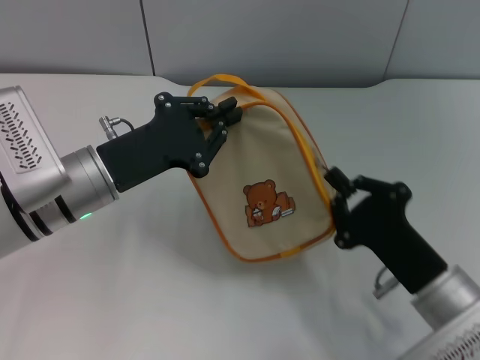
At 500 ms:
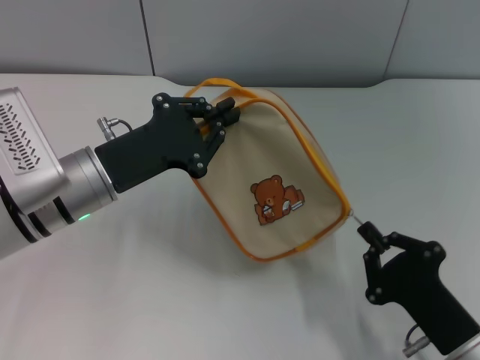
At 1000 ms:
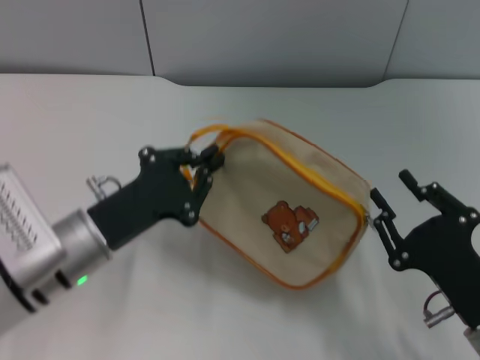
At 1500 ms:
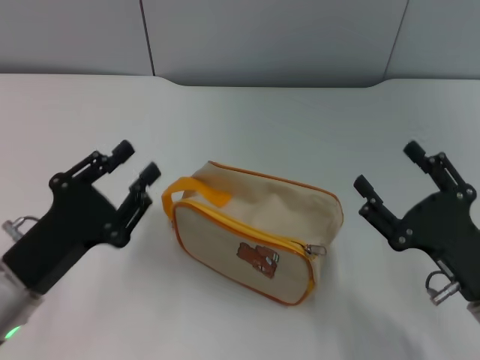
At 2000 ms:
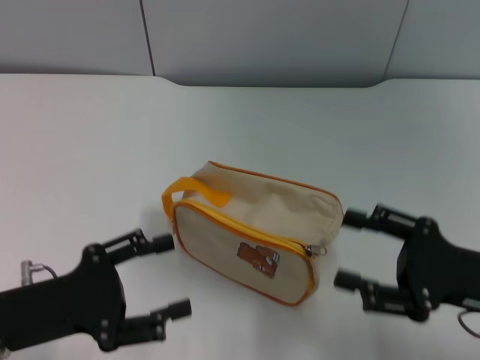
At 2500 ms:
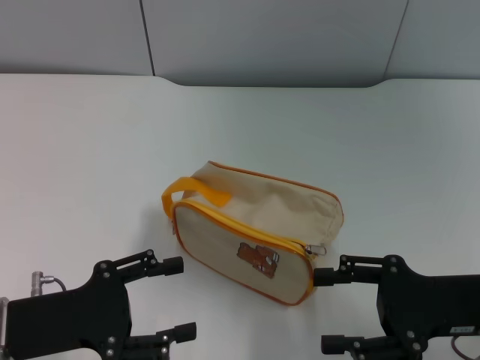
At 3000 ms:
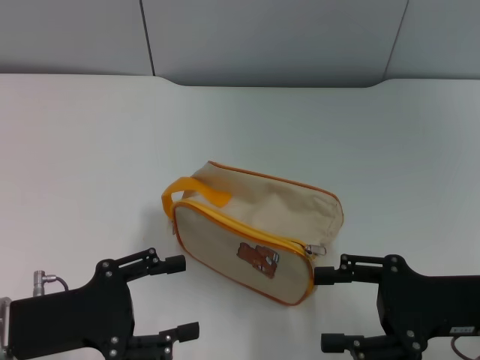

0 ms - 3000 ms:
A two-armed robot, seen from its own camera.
Step, 1000 ms - 1500 ms: Place the bag on the table with left gripper.
0 ms - 1500 ms: The right gripper opens its fingers. Meanwhile the left gripper shifts approximately 10 cm backward and to the left.
1500 ms - 3000 ms: The right gripper changes place by some 5 cm; the left gripper opens.

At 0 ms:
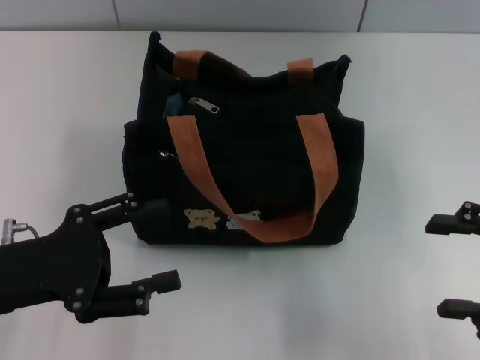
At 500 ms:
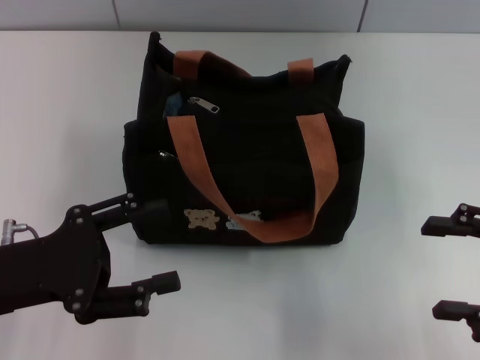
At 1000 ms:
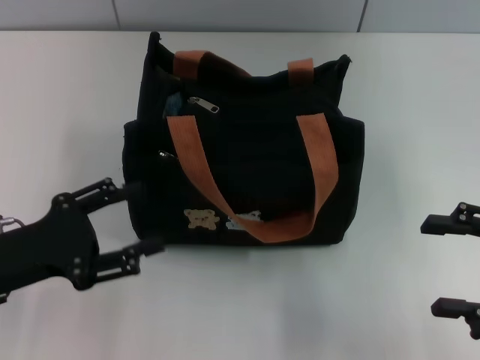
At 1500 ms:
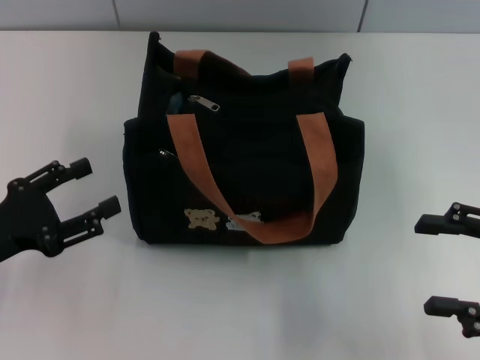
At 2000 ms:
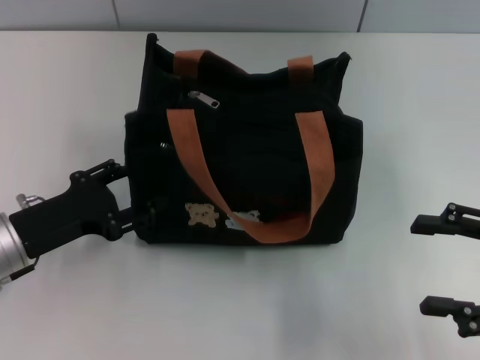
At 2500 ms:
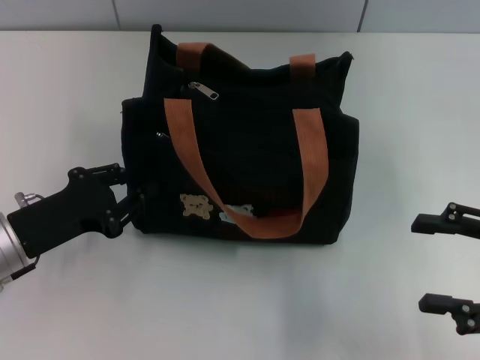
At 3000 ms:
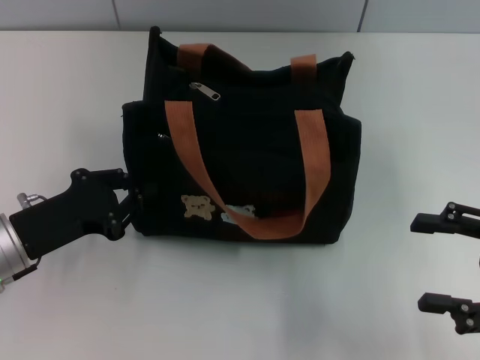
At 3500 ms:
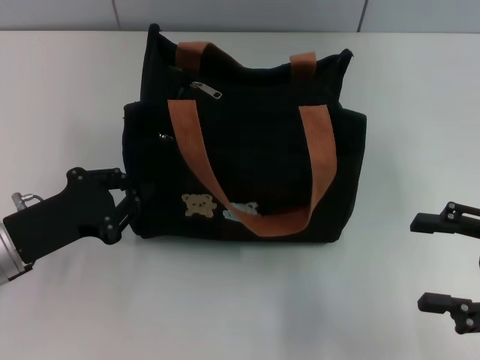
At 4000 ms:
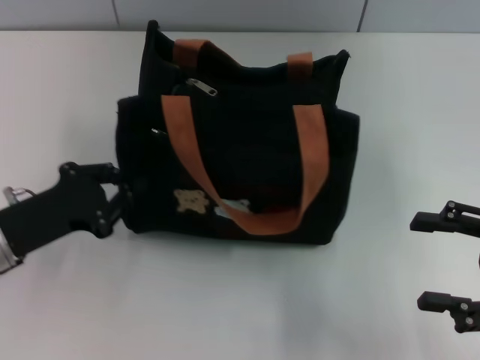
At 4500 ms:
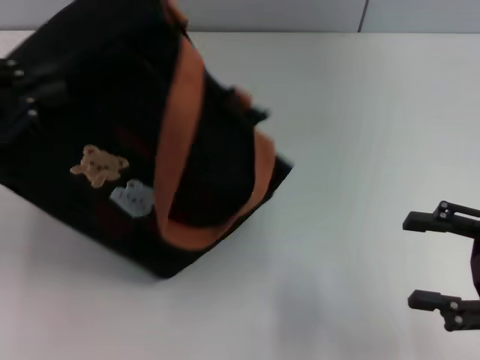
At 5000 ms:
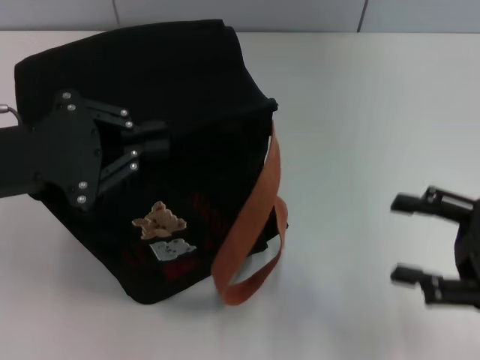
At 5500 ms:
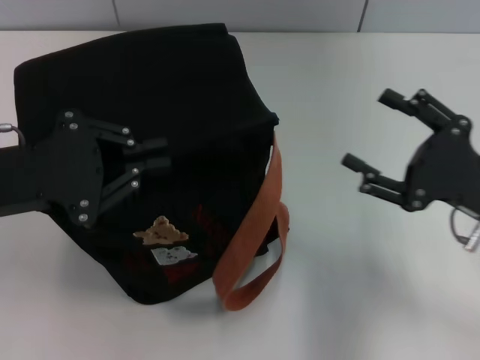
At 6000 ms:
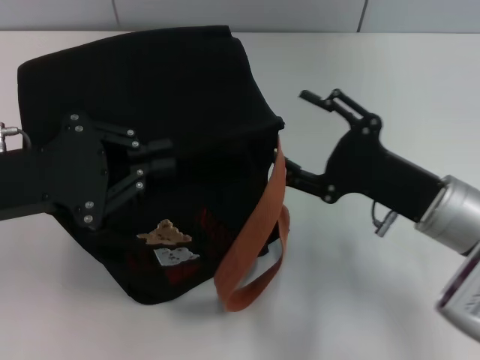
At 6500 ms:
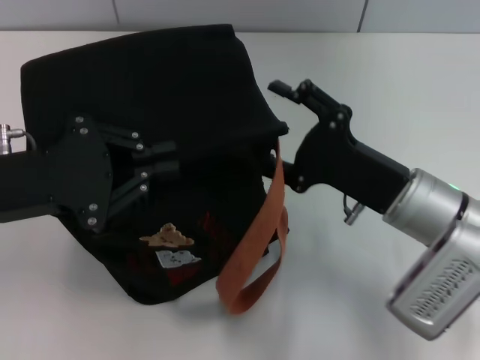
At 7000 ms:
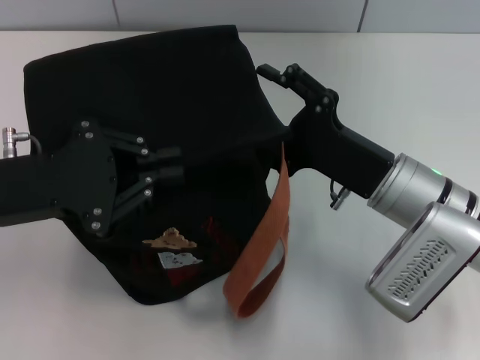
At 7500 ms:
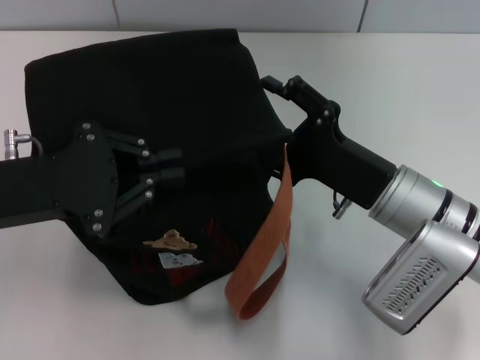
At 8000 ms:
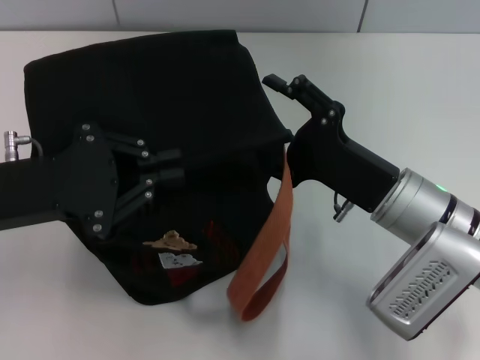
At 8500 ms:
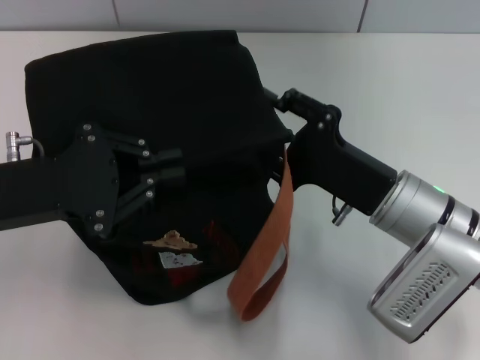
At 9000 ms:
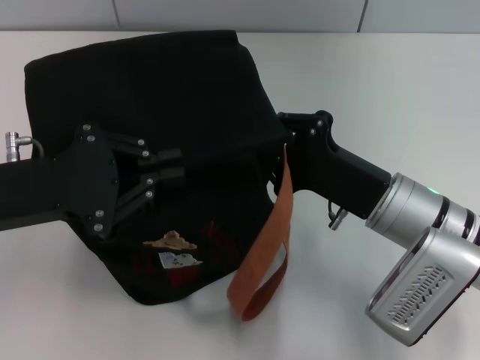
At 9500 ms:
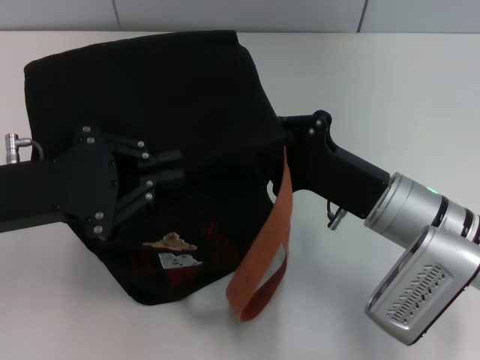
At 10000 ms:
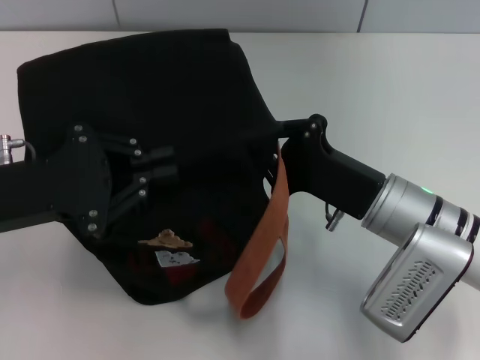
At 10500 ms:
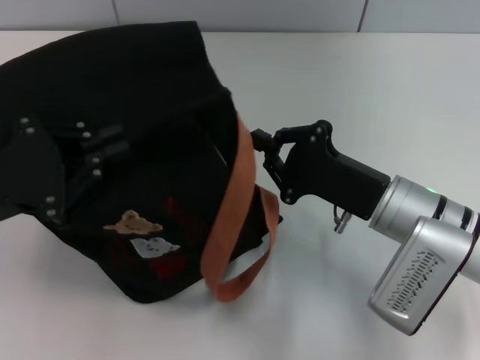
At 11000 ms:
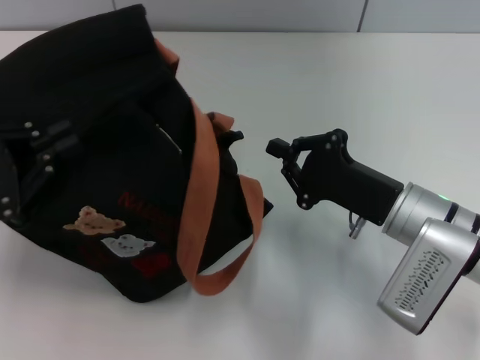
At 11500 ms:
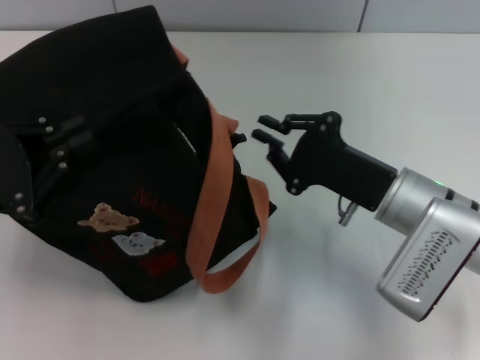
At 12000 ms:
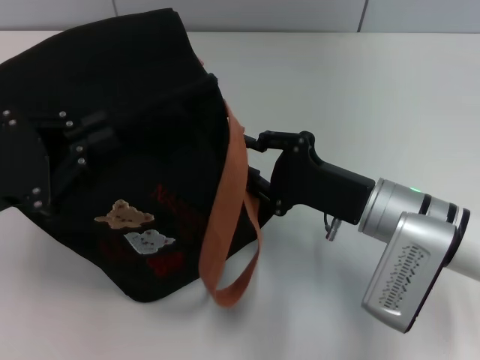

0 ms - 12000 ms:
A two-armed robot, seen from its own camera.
0 ms - 2000 ms: The left gripper goes about 5 cm downward.
2000 ms - 4000 ms: The left gripper closes.
4000 ms - 6000 ms: The right gripper heads to the left and forward, covering roughly 15 cm, while the left gripper travels upward by some 10 cm.
8000 ms - 10000 ms: The right gripper closes its fingers.
10000 ms - 12000 ms: The right gripper opens its fingers.

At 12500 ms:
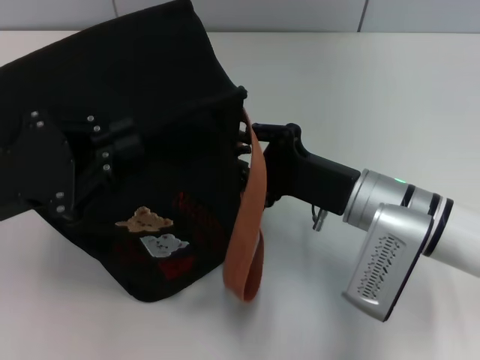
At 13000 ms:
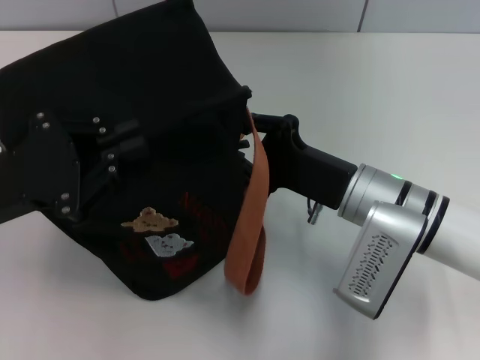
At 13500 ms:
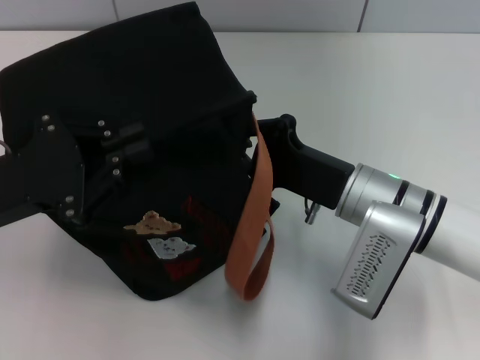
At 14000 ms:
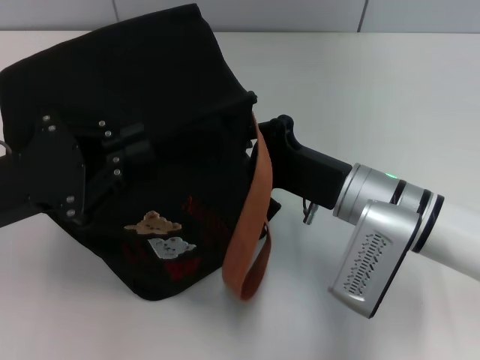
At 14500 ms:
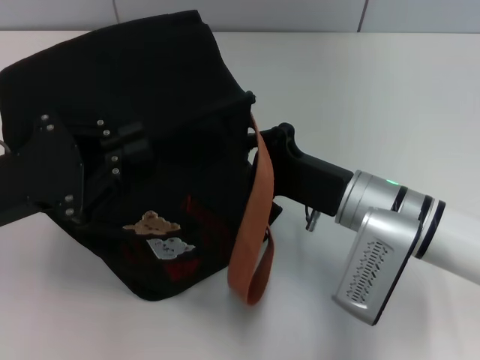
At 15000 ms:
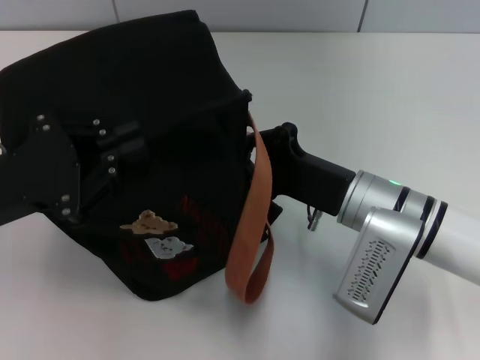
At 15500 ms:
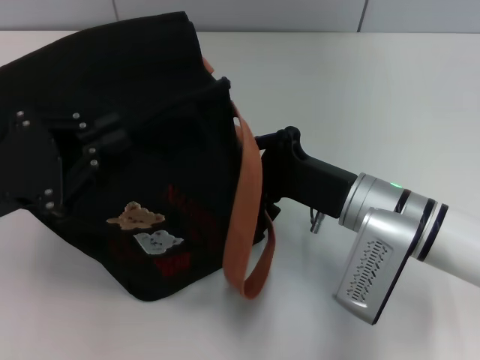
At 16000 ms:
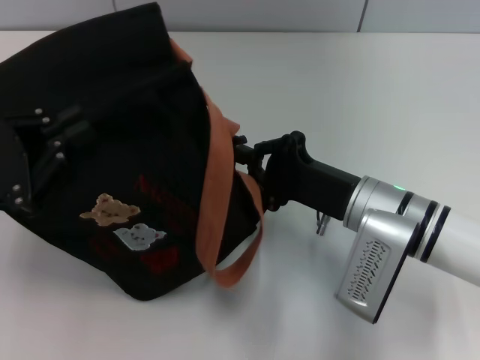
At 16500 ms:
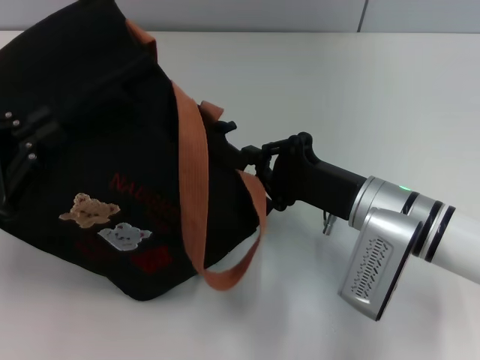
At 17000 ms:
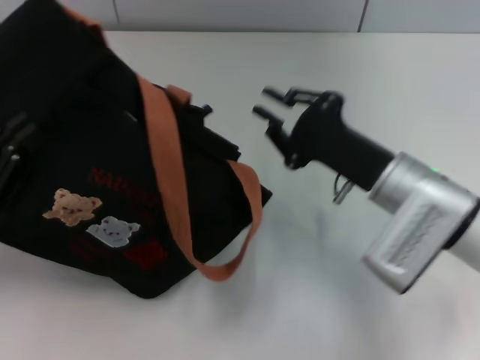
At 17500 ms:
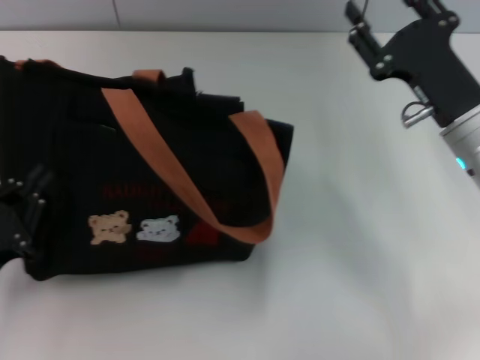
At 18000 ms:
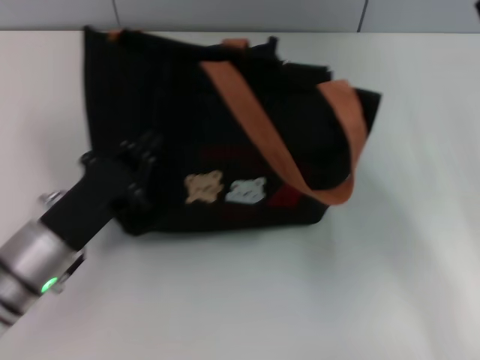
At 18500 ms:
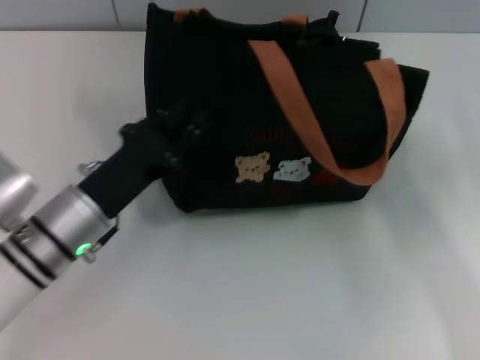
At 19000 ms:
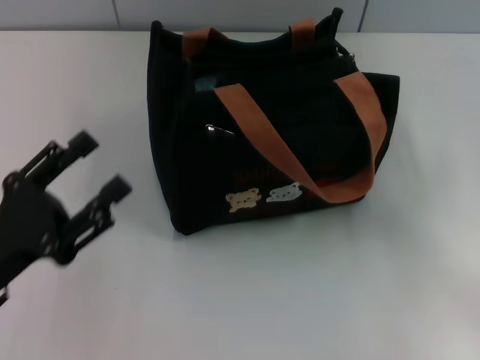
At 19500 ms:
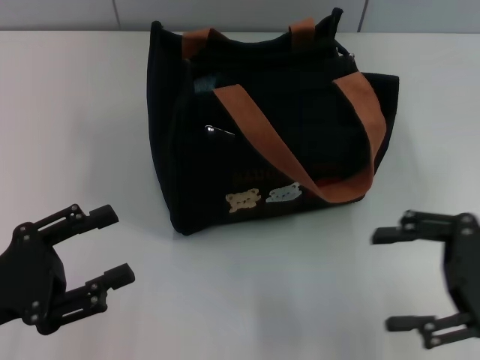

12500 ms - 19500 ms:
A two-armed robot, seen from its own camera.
Step, 12500 ms - 16500 ms: Pull open the zipper with your right hand.
Step, 17000 ms - 18500 ms: Grab the bag with your left hand.
12500 ms - 14500 ms: The right gripper closes up.
14500 ms - 16000 ms: The grippers make only small movements.
16000 ms - 17500 ms: The right gripper is displaced to the right by some 5 cm, and opens. Meanwhile the left gripper shifts about 10 cm downward and backward.
17500 ms - 19500 ms: The left gripper travels to the right and back again, approximately 10 cm each way, and opens; the right gripper heads backward and to the right, covering about 10 cm.

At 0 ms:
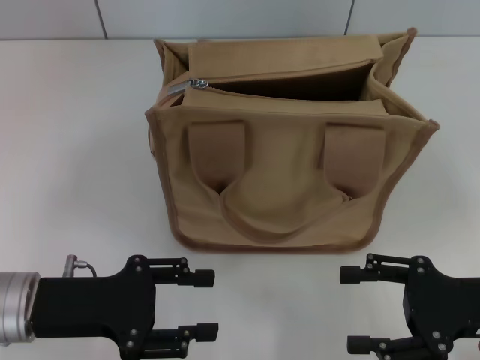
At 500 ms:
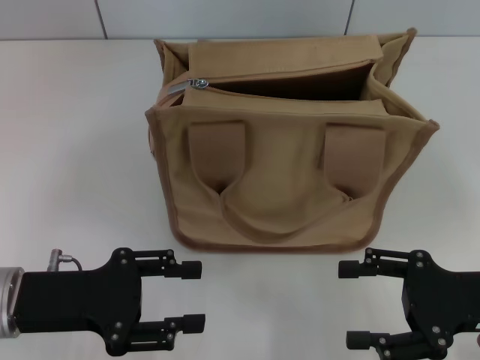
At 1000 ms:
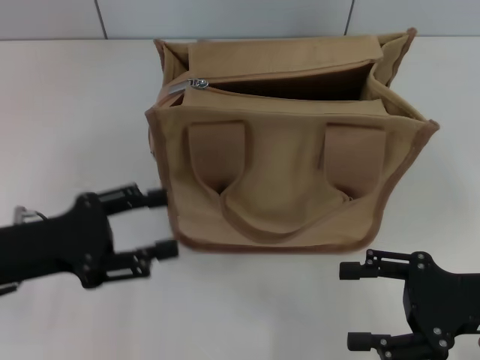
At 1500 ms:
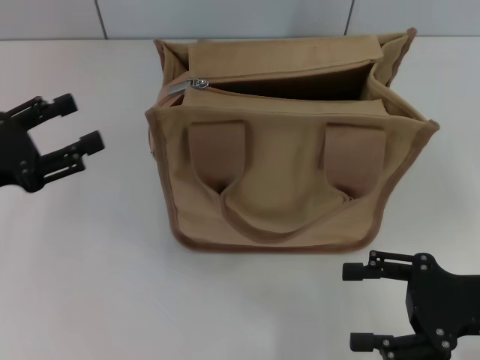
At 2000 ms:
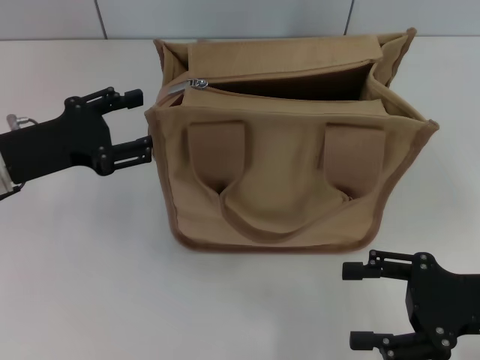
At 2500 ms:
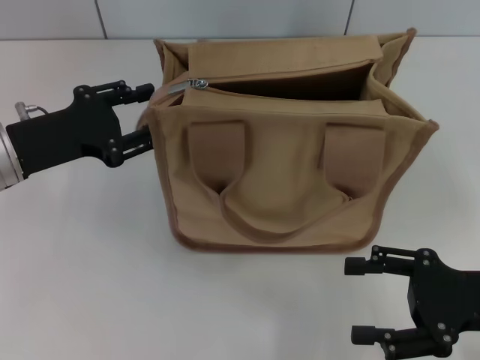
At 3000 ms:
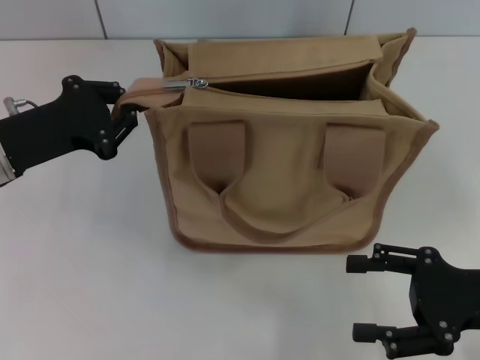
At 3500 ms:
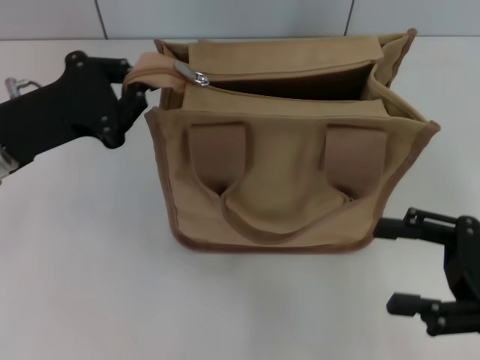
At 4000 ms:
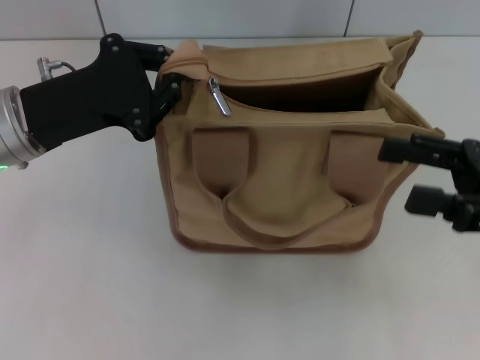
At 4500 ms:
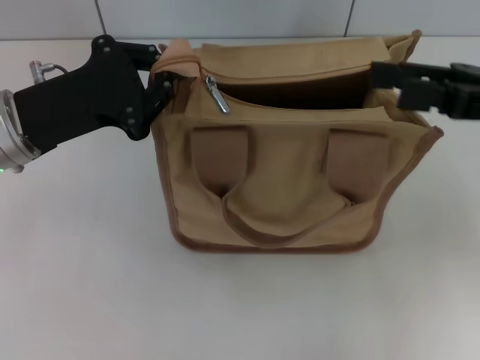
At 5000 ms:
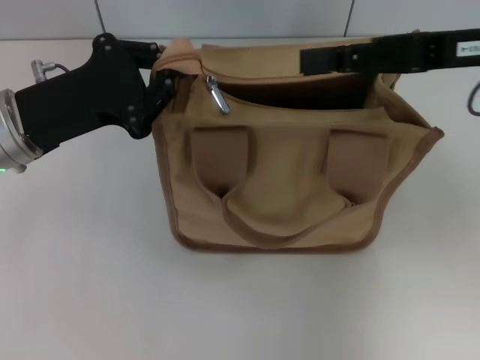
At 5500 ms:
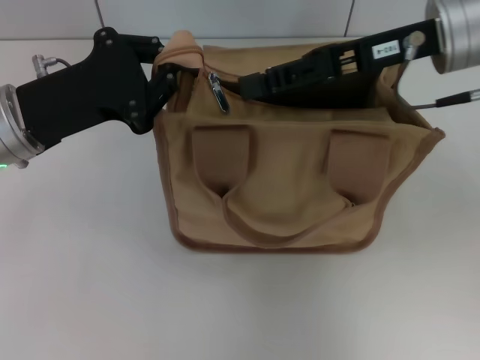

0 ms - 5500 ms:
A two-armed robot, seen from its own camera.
0 ms - 2000 ms: The left gripper moves forward, roughly 10 cm.
2000 ms - 3500 ms: The left gripper closes up.
3500 ms - 5500 ms: The right gripper moves forward, upward and to the left, roughly 25 cm, and closes up.
